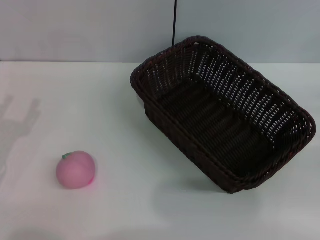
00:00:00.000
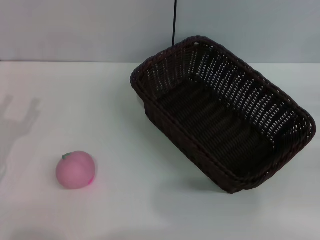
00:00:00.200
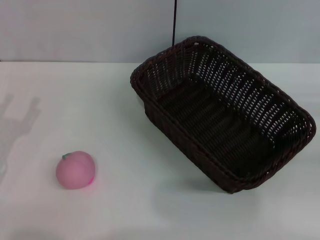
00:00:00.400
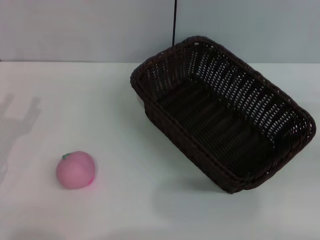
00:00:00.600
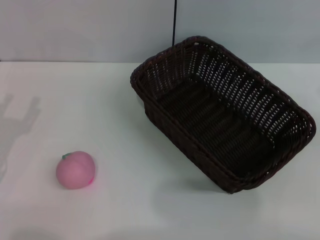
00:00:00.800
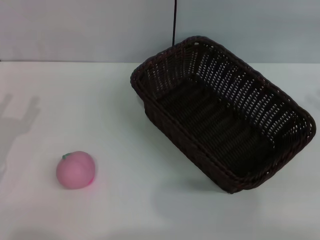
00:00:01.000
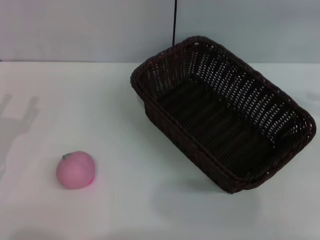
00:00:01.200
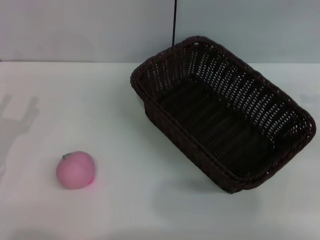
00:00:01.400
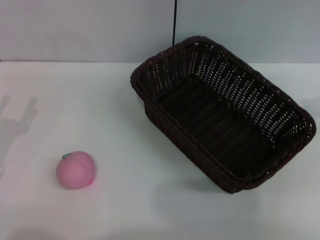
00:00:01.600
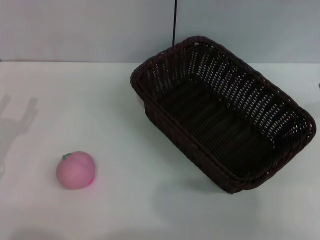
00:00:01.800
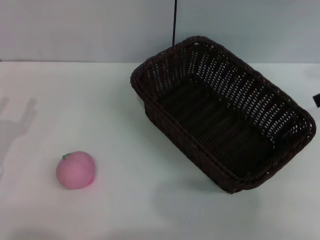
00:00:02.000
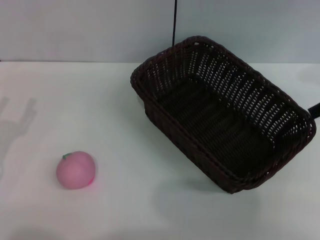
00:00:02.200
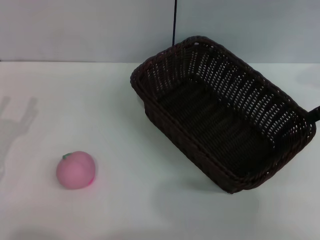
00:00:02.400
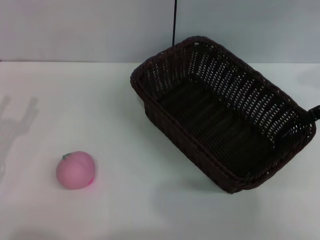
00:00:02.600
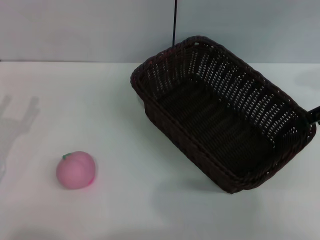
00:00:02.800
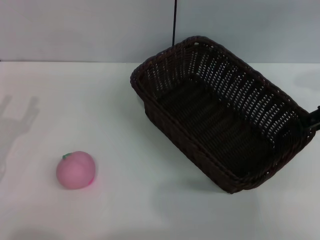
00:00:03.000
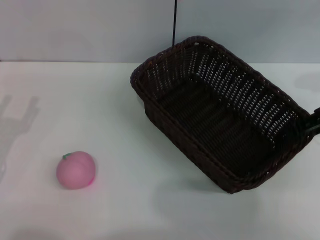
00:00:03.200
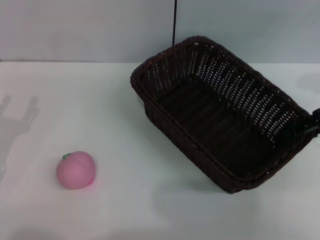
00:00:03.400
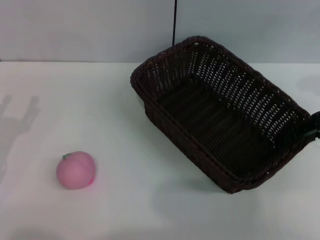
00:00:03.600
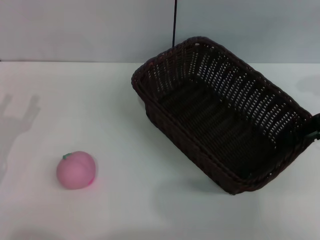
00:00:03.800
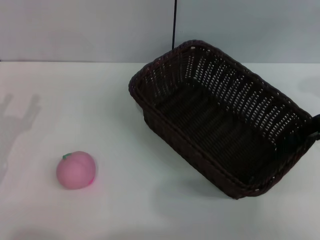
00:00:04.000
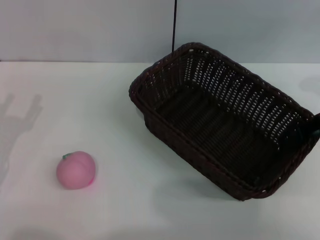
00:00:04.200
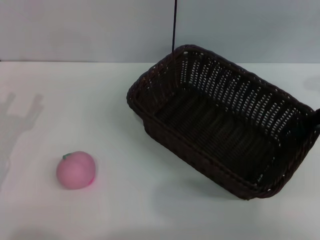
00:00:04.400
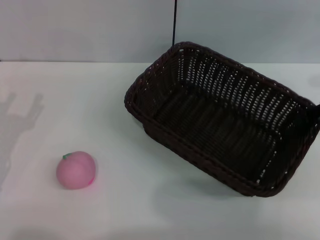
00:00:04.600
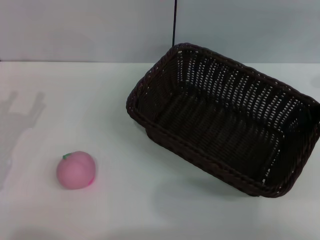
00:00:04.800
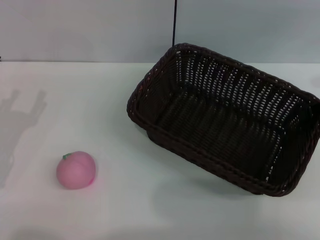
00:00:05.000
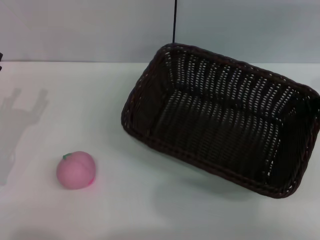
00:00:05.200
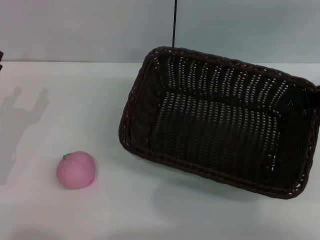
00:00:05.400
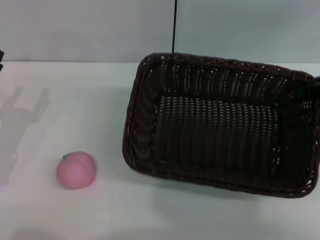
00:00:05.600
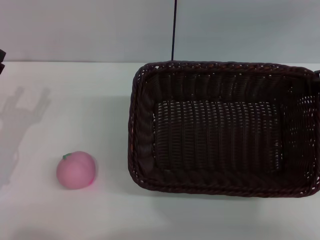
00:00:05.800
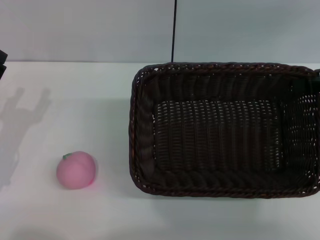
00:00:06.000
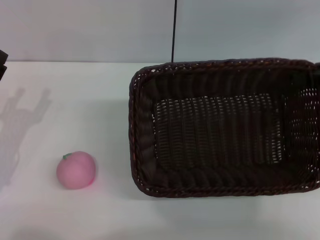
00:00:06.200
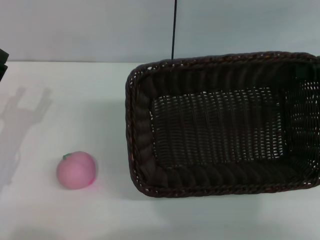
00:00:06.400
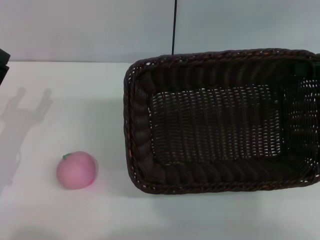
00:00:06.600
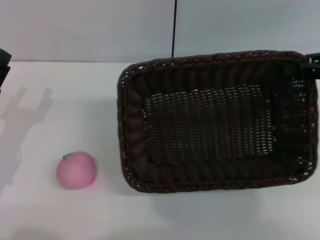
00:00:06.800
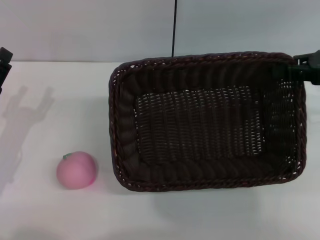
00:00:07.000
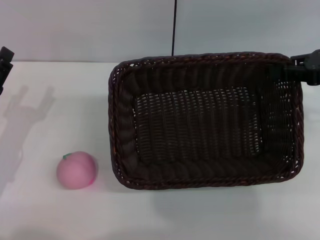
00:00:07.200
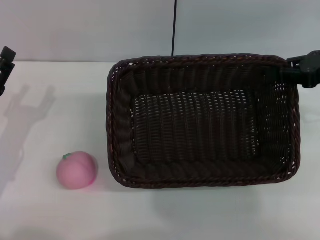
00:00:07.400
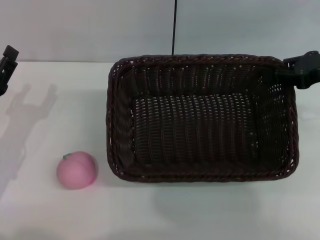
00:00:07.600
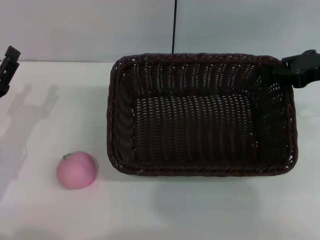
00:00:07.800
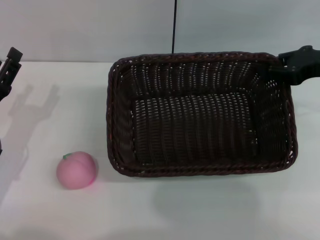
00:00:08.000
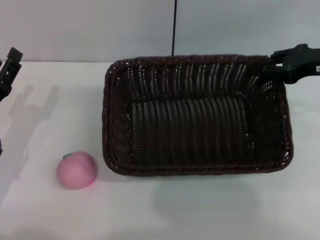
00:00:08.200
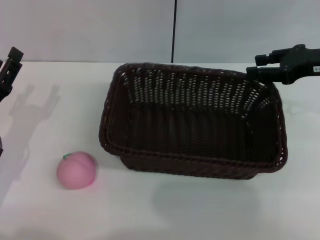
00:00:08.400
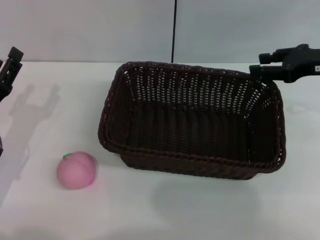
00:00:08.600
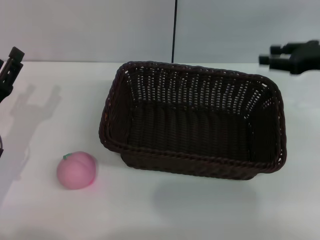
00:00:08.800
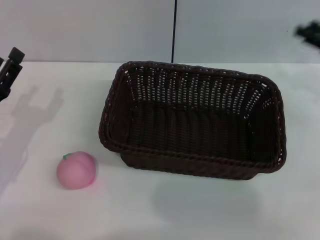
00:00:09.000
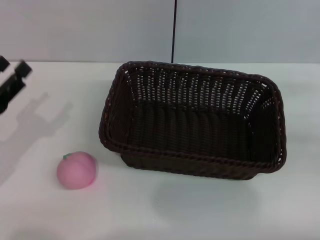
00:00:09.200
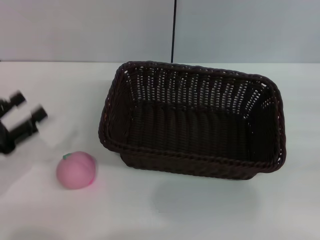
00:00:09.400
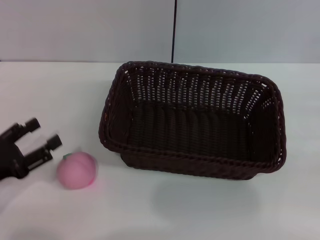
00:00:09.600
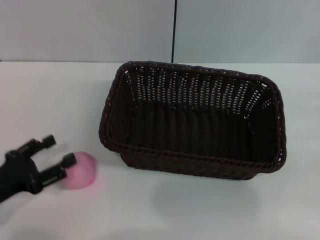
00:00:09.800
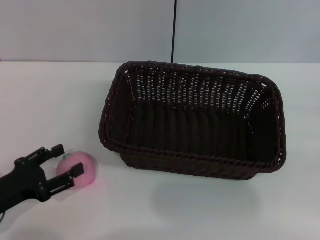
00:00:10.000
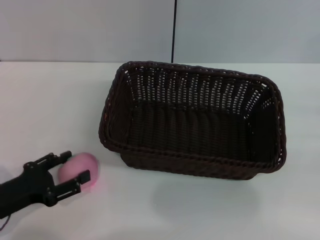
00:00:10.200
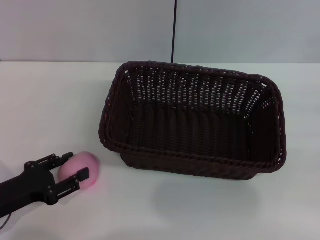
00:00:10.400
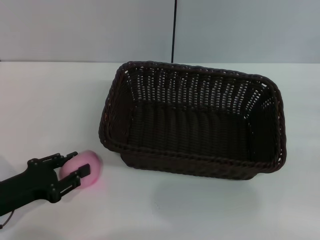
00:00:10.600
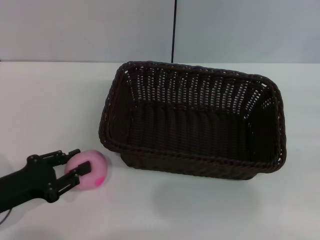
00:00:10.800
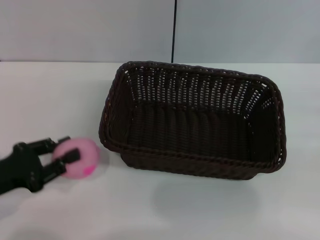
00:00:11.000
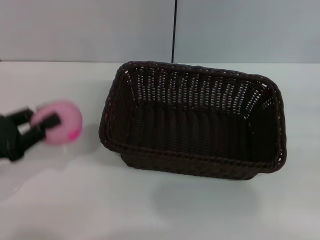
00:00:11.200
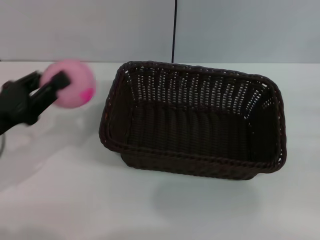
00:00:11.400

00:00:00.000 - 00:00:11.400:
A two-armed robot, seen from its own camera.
Step, 00:00:00.000 - 00:00:05.400: Pick up the dark basket with the right gripper.
Step, 00:00:05.600 - 00:00:08.600: Place the dark basket in the center of view with the right gripper.
Step, 00:00:08.800 - 00:00:11.200: Pick up the peach with the left gripper.
00:00:02.800 - 00:00:04.200: The right gripper closes its fingers.
00:00:04.200 - 00:00:05.600: The right gripper closes.
00:00:05.600 - 00:00:07.200: The grippers make only small movements.
00:00:07.200 - 00:00:08.600: The right gripper opens.
00:00:08.600 - 00:00:10.000: The left gripper goes roughly 5 cm backward; the right gripper goes about 20 cm backward, to the right and downward.
00:00:10.000 - 00:00:11.400: The left gripper heads upward and forward, covering about 10 cm, and closes up.

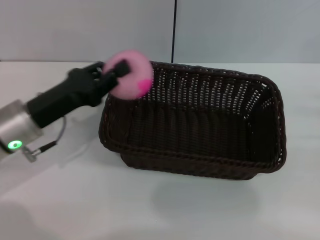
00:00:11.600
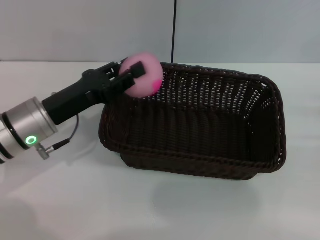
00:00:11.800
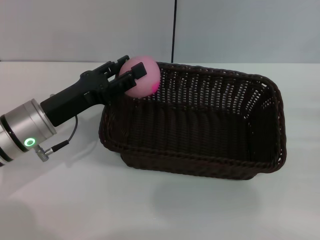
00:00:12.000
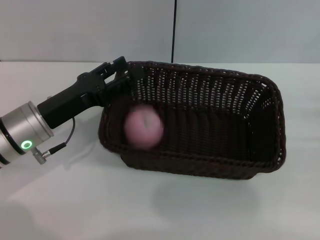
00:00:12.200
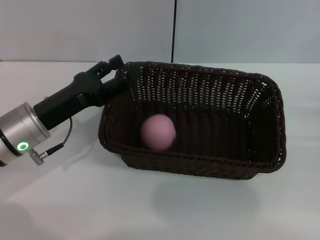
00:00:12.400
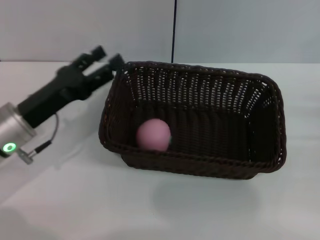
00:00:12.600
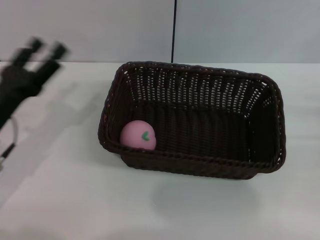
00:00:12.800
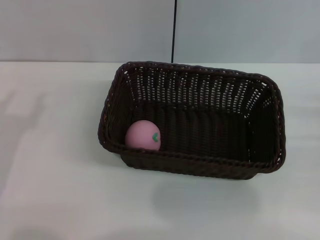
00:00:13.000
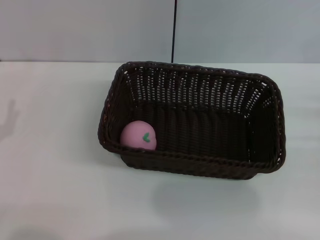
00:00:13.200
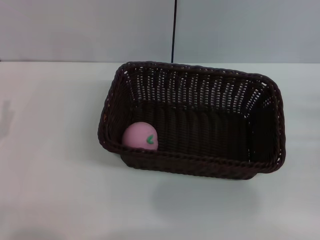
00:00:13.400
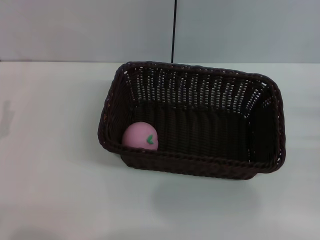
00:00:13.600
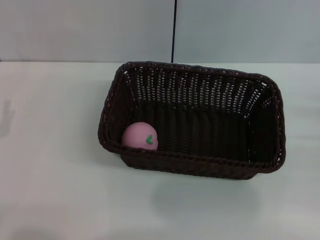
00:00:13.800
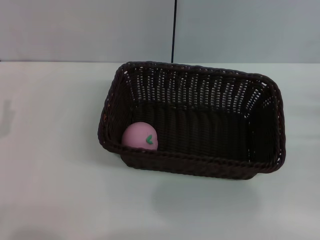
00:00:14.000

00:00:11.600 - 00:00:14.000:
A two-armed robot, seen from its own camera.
Step, 00:00:11.600 - 00:00:12.400: Place the peach into the basket with the left gripper.
00:00:11.600 - 00:00:12.800: The left gripper ends up some 5 cm from where it was, and opens.
00:00:12.800 - 00:00:14.000: The left gripper heads backward, covering about 5 cm.
